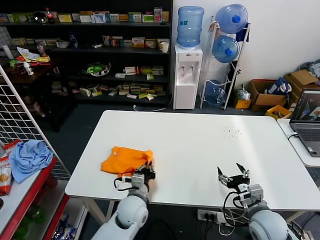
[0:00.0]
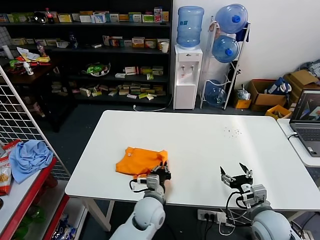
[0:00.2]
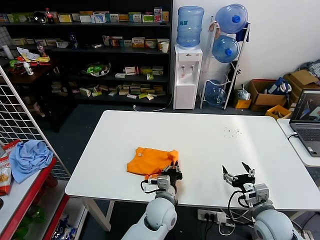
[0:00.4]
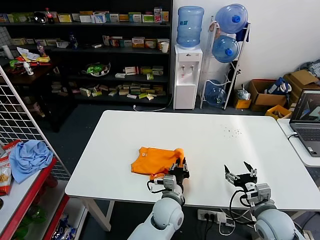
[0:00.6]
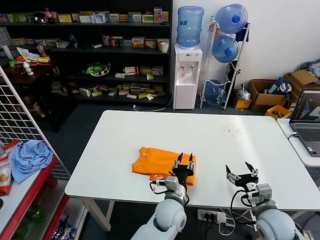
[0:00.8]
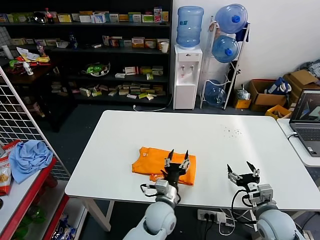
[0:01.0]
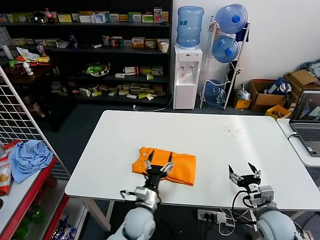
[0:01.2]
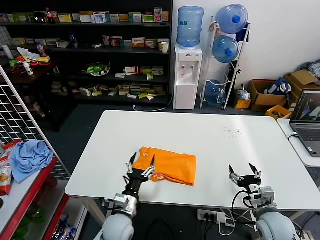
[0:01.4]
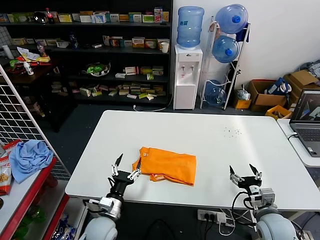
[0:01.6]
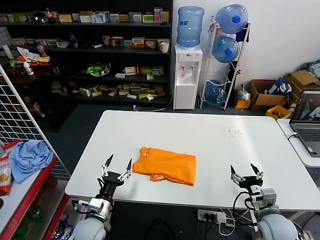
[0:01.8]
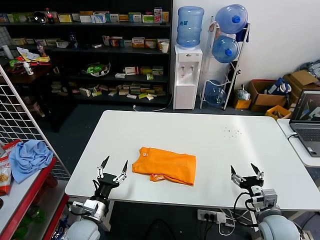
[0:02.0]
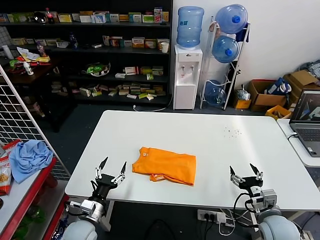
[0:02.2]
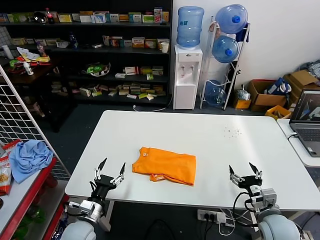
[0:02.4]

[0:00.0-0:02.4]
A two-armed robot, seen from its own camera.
Task of the whole recording: fold and organize the clothes.
0:00.0 to 0:01.2: The left gripper is displaced to the right by some 5 cm, and opens up.
0:01.2 to 0:02.4: The left gripper moves to the left, about 20 cm.

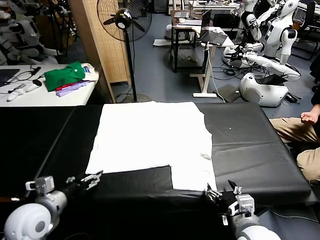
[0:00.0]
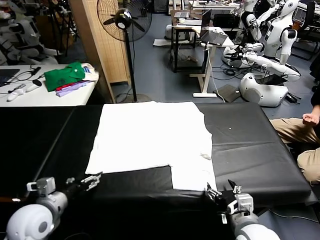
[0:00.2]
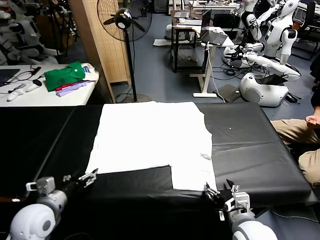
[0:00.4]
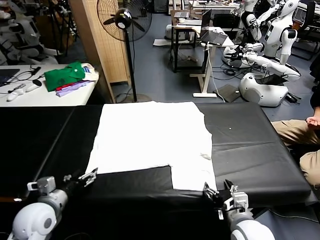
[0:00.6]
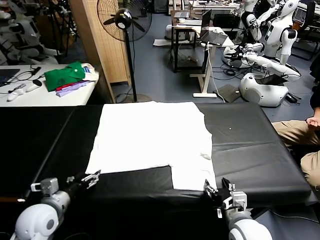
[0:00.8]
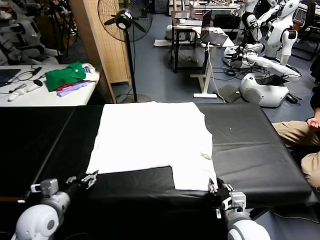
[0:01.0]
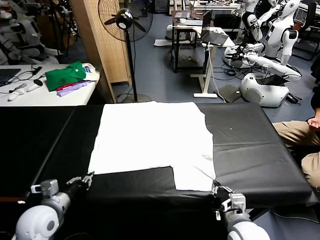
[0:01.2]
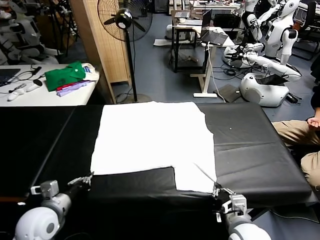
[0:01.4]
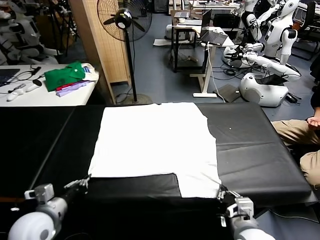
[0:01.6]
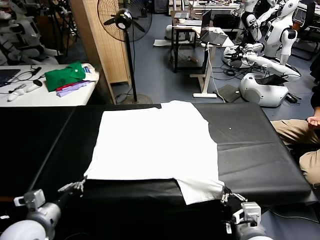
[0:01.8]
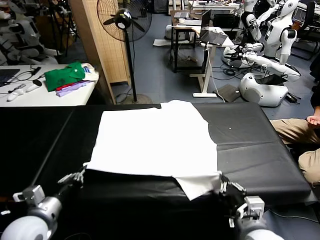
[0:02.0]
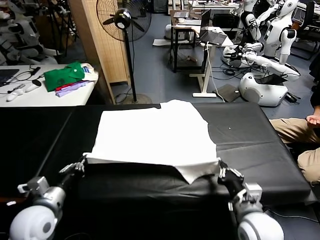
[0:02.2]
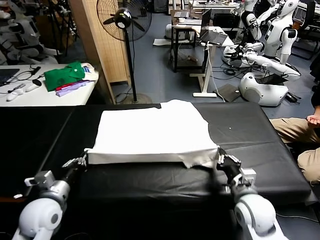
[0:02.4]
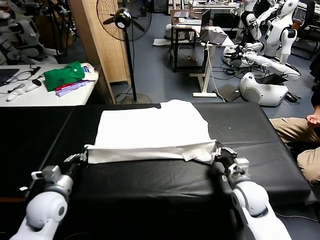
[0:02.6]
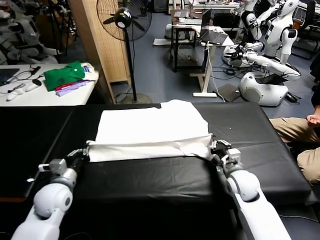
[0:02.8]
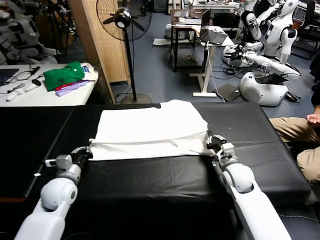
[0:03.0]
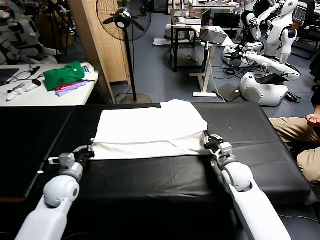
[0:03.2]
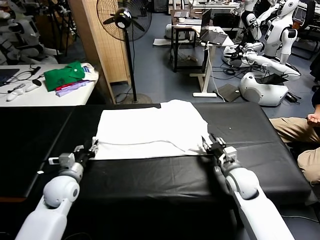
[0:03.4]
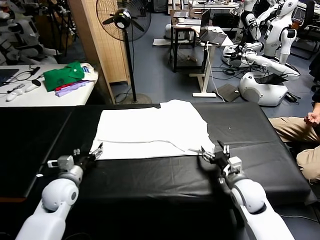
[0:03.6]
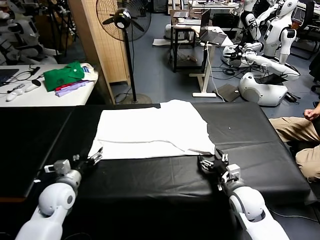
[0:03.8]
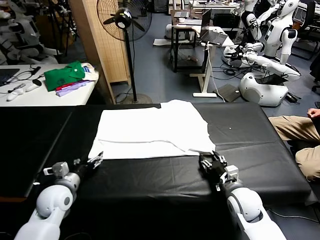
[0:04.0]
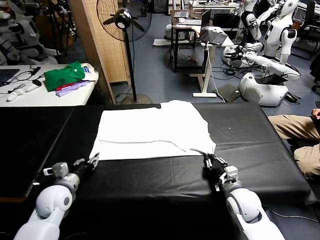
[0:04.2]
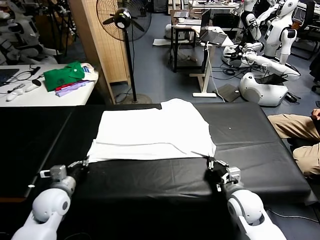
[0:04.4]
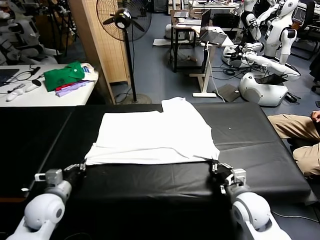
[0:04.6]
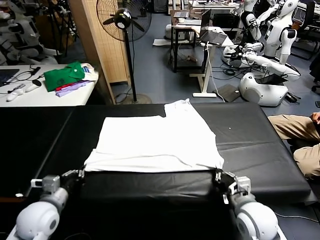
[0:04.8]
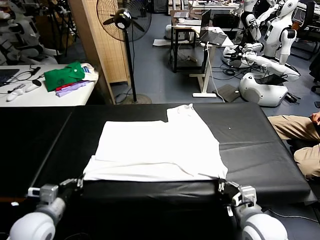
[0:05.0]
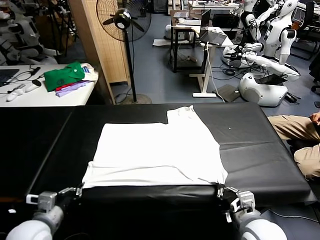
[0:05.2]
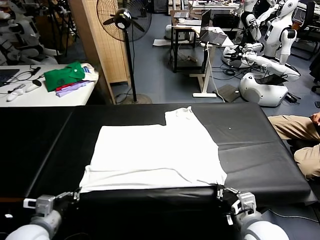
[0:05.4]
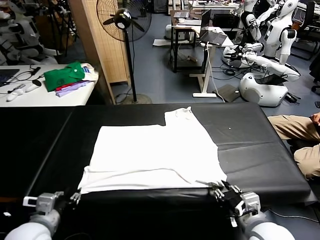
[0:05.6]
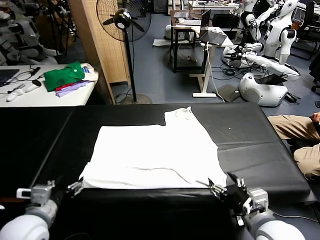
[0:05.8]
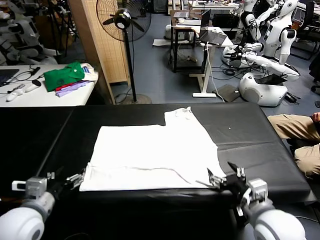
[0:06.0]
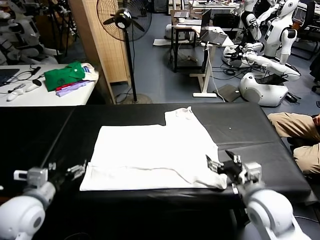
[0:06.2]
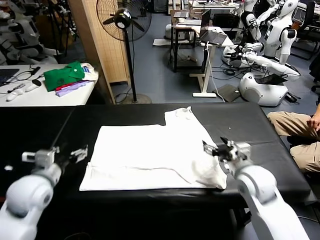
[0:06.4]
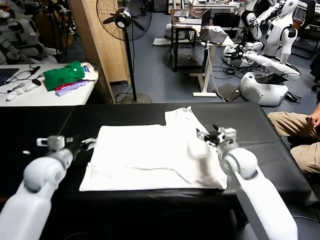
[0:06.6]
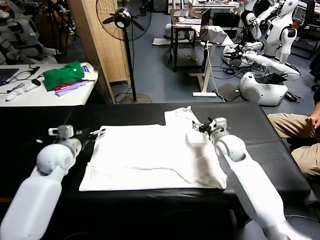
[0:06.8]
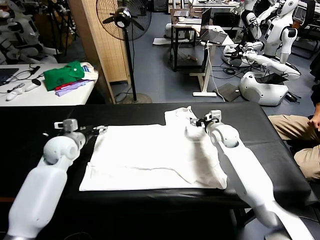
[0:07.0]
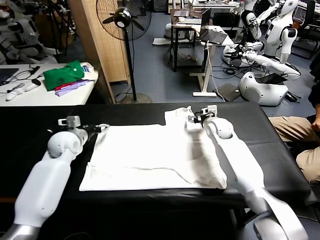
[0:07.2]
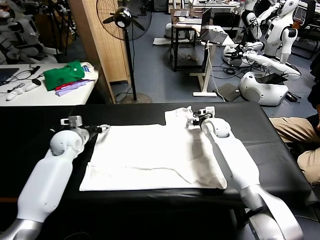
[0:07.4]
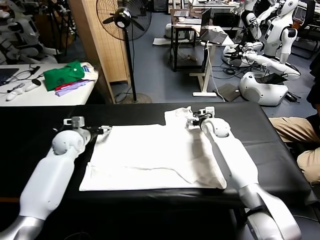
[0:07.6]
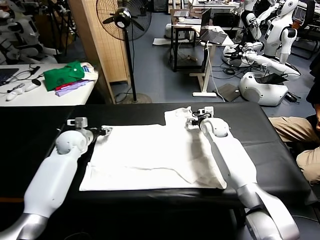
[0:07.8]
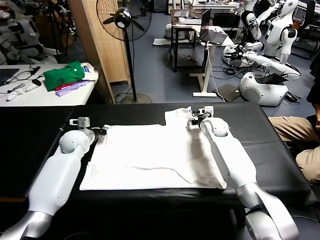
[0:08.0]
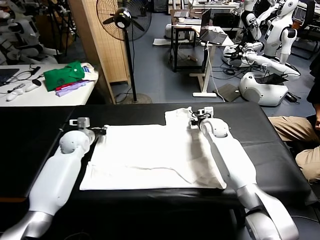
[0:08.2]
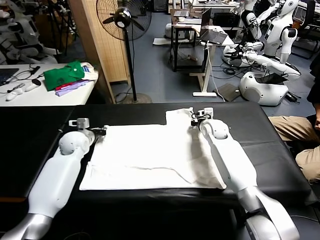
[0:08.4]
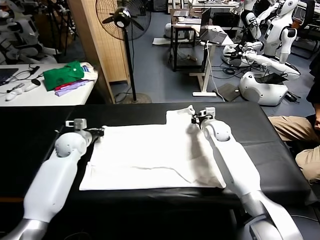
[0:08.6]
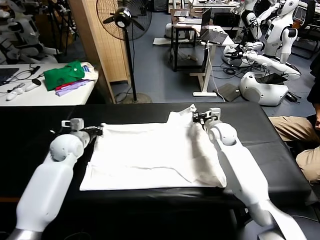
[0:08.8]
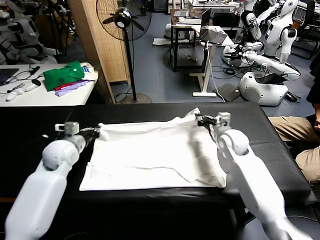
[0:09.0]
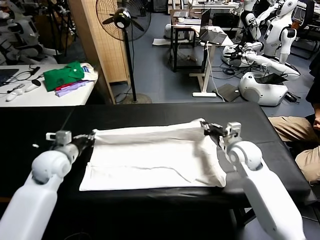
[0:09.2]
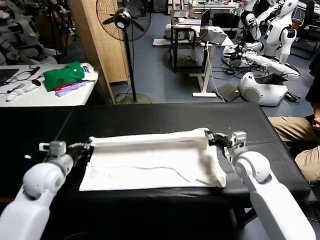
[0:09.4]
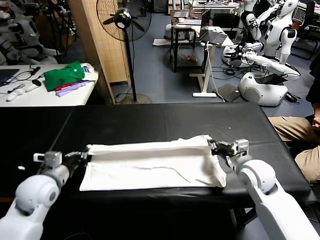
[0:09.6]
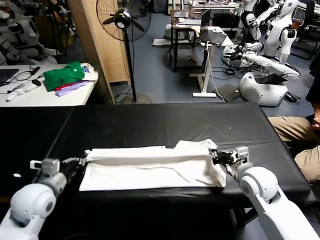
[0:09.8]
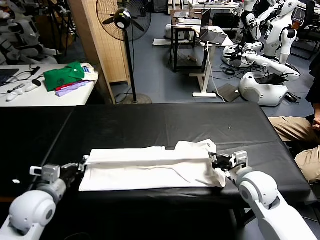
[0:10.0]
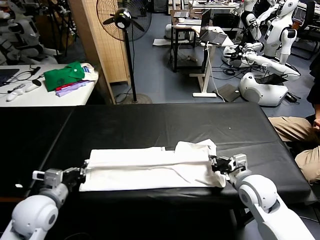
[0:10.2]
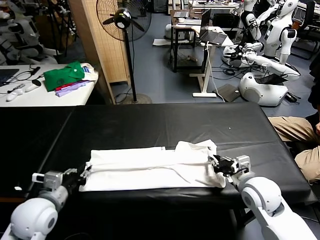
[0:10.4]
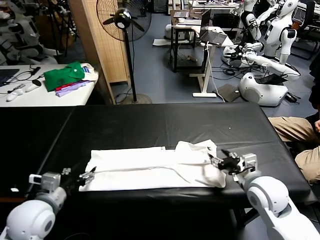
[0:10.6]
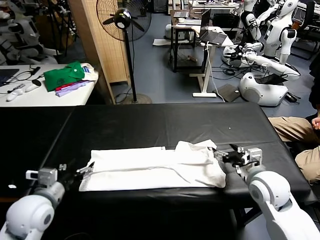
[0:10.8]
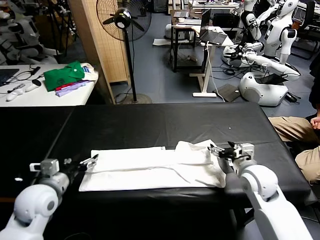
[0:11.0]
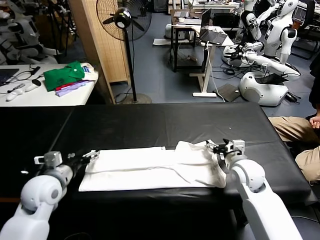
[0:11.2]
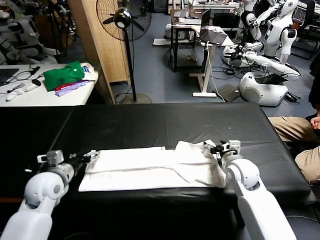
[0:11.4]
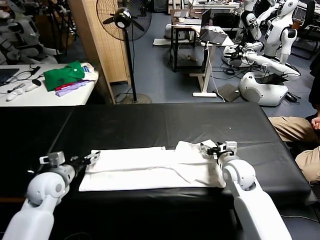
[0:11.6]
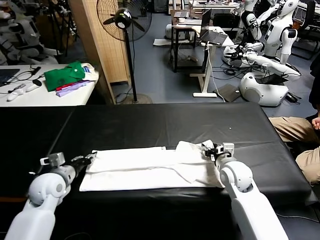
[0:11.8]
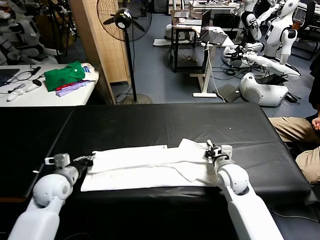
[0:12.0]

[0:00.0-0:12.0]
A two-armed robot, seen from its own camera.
Task of the whole recording: fold and organize the clothes.
Step, 0:00.0 to 0:01.2: use both grippers simultaneously to clamp the lower edge of the clothing fabric.
Step, 0:01.4 to 0:03.2: use both grippers to drag the lower edge of the fabric forward and fold it over the upper edge.
Step, 0:03.4 to 0:05.6: Drag the clothes downward with both gripper.
Step, 0:05.8 to 0:08.2: use both grippers simultaneously to clamp the upper edge of the clothing fabric.
Step, 0:08.4 to 0:10.4: use both grippers to drag the upper edge of the fabric backward and fold it over the lower edge.
0:01.6 to 0:03.0: The right gripper goes roughly 25 cm forward. Meanwhile the left gripper goes about 15 cm forward.
0:03.0 to 0:04.4: The right gripper heads backward, covering some 10 cm, and opens, then closes once more. The left gripper opens and closes again.
0:04.4 to 0:06.0: The right gripper goes some 10 cm upward, moves roughly 10 cm backward and comes back, and opens, while the left gripper is displaced upward and backward by approximately 15 cm, and opens up.
0:06.0 to 0:07.6: Both grippers travel together forward, about 30 cm.
0:07.6 to 0:09.0: The left gripper moves backward, roughly 10 cm, and closes up. The right gripper travels backward and to the right by roughly 15 cm, and closes its fingers.
0:09.0 to 0:10.4: Both grippers travel together backward, about 15 cm. The left gripper opens its fingers; the right gripper opens.
0:10.4 to 0:12.0: The left gripper heads forward and downward, covering roughly 10 cm, and closes its fingers; the right gripper travels forward, downward and to the left by some 15 cm, and closes up.

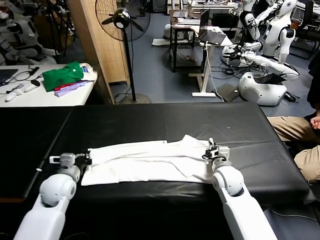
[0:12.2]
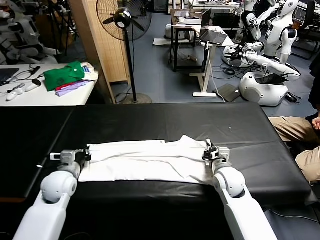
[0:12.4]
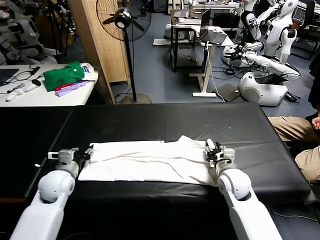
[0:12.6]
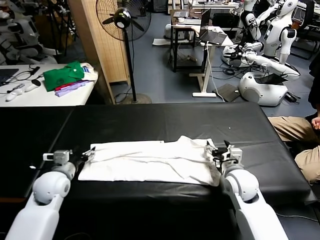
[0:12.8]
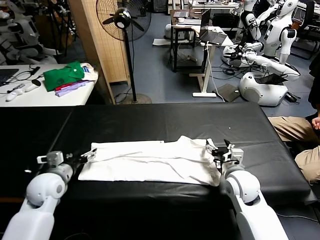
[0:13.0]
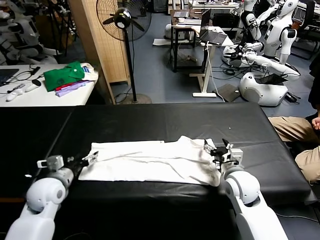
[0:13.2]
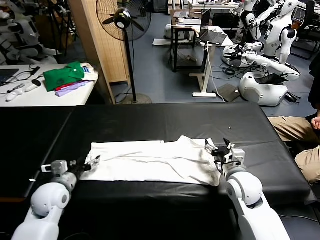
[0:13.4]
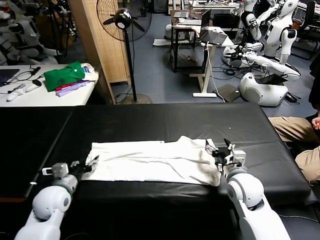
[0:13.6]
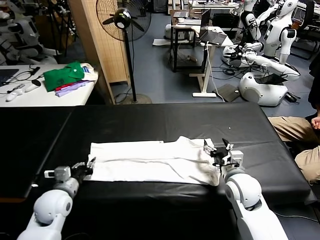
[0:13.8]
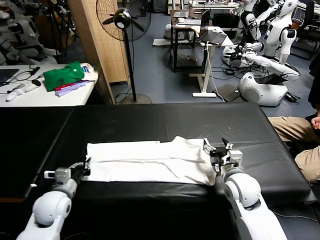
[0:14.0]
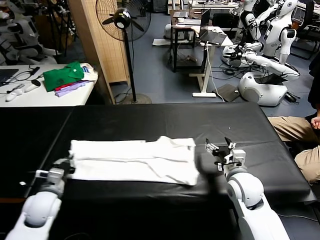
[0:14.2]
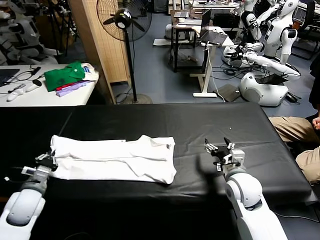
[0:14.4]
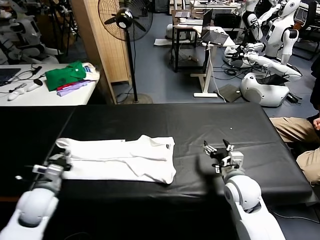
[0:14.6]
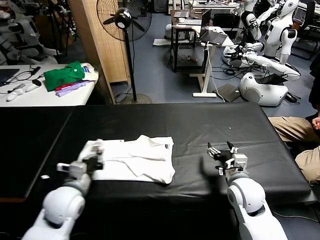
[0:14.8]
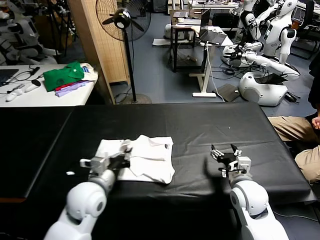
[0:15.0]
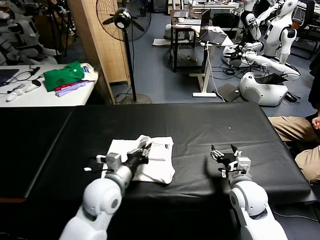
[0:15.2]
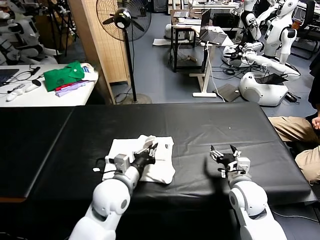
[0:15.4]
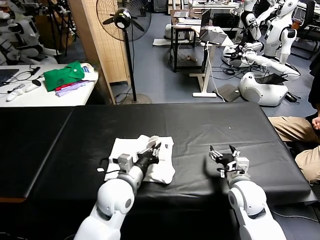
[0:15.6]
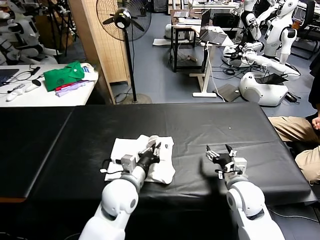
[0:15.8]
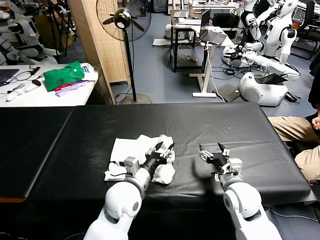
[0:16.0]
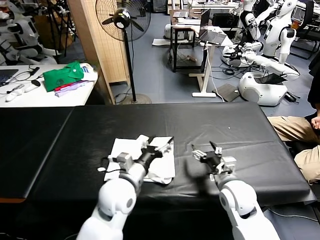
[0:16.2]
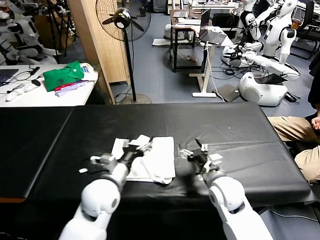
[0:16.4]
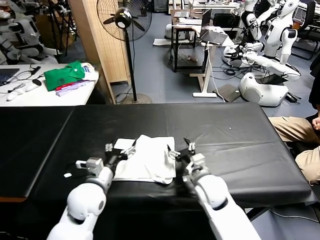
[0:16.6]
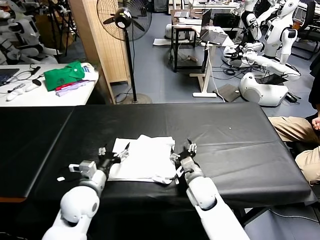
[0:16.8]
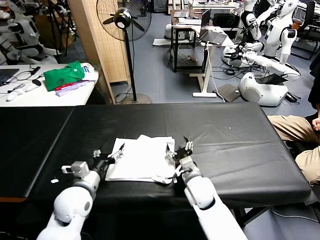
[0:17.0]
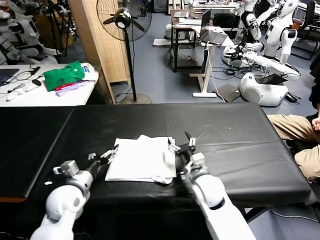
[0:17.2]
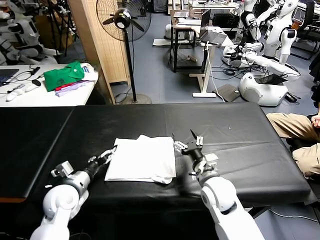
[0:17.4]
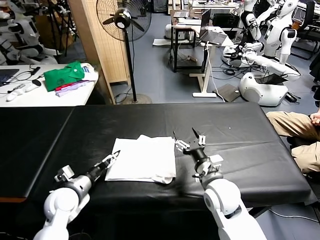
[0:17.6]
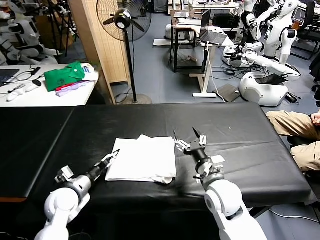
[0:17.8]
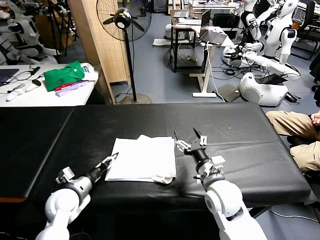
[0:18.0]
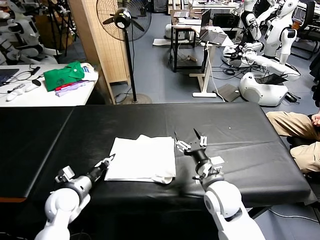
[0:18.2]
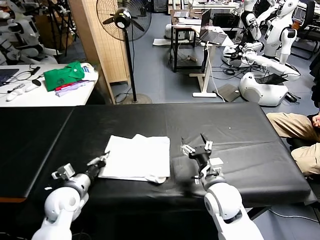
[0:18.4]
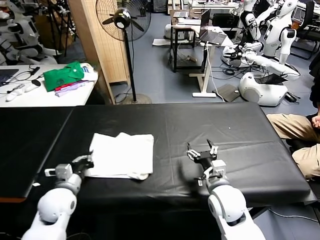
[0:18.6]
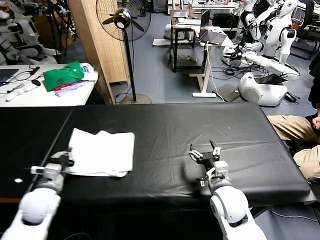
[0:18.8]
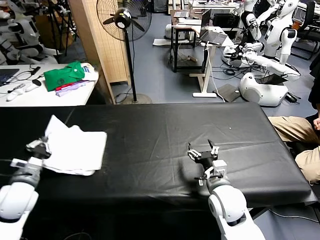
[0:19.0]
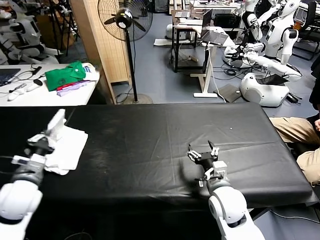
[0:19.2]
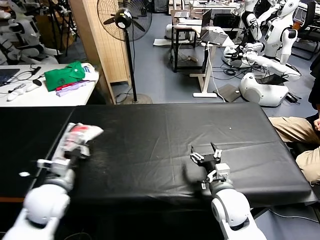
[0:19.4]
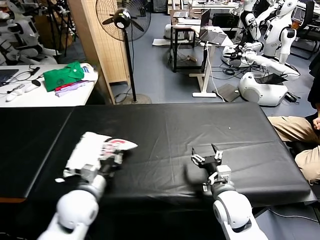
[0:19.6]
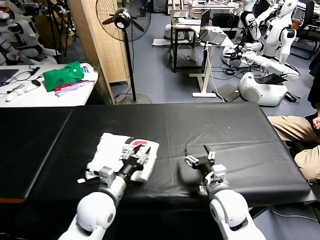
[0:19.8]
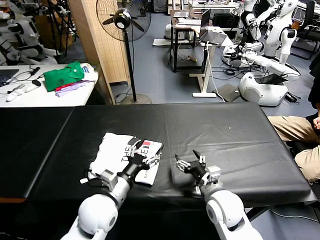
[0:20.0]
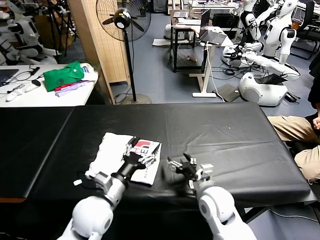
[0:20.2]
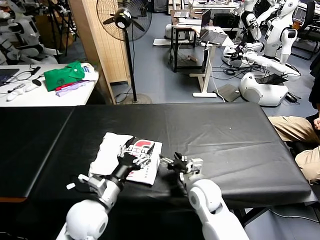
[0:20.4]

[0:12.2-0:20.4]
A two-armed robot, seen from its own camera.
Task of the whole recording: fold and organize the clothes.
Step, 0:14.2 to 0:16.0: use the left gripper to drag the left edge of the fabric to the left and folds it over the right edge.
Step, 0:16.2 to 0:19.8: Flip the folded clothes over with left gripper.
0:12.2 to 0:13.8: The left gripper opens, then closes once more. Meanwhile the right gripper changes place by approximately 5 cm, and opens up.
0:13.8 to 0:15.4: The left gripper goes approximately 20 cm to the right.
0:15.4 to 0:17.2: Both grippers move to the left, roughly 15 cm. The left gripper opens.
0:17.2 to 0:18.8: The right gripper changes place by approximately 5 cm. Meanwhile the left gripper travels to the left by approximately 5 cm, and closes its fingers.
0:18.8 to 0:20.4: The left gripper travels to the right by approximately 15 cm, and opens up. The right gripper travels to the left by roughly 5 cm.
